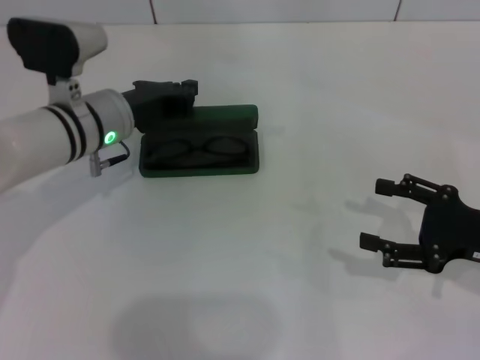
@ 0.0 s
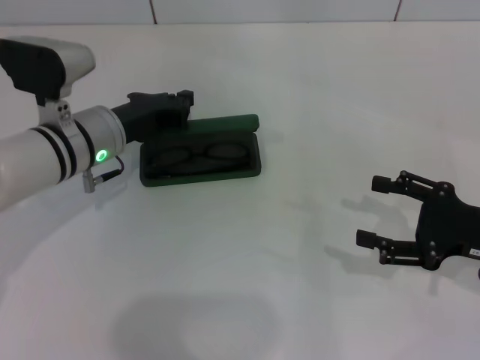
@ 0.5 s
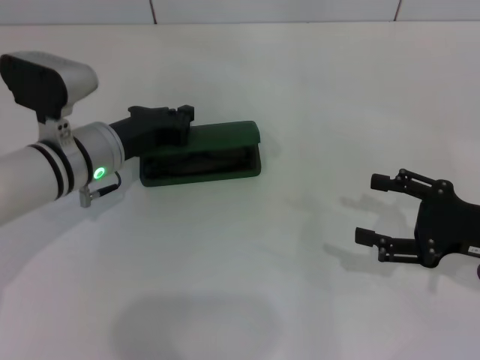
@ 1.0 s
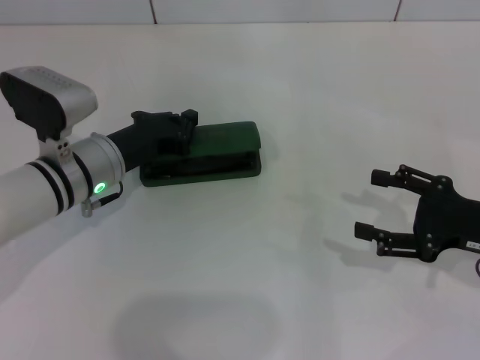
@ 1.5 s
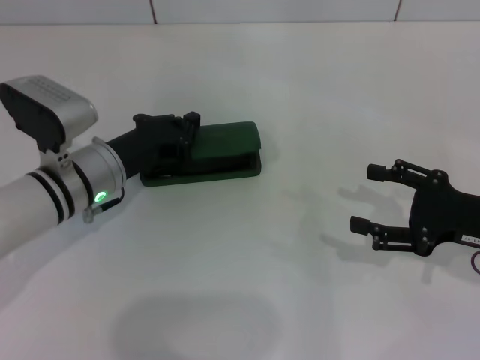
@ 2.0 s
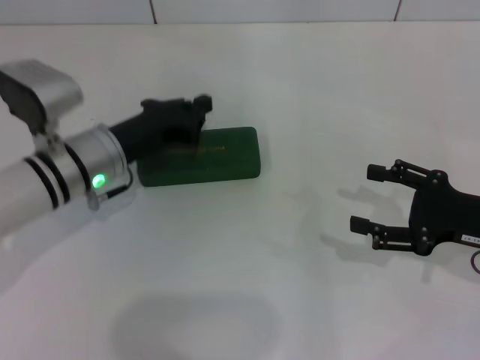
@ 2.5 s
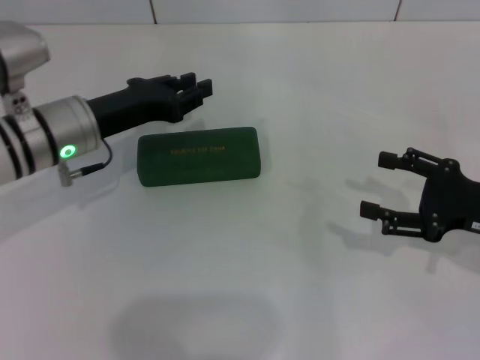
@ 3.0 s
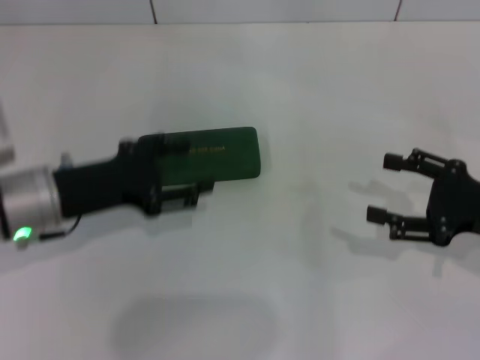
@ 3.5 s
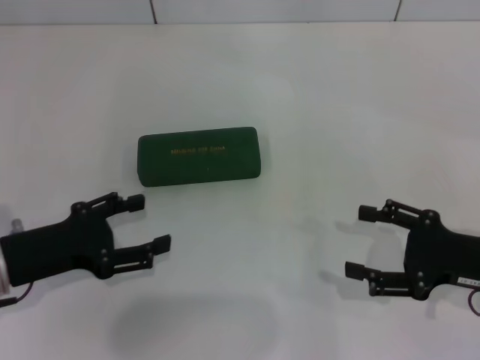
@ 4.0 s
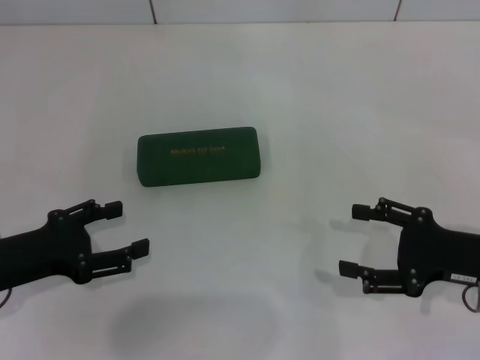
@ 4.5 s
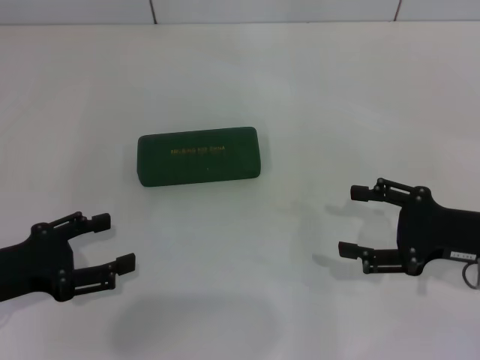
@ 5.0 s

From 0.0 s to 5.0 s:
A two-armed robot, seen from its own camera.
Step, from 0.0 s to 2.0 s: Close the glasses case with your left hand.
From 2.5 s to 5.0 s: The left gripper shifts roughly 20 cm backward and to the left, and opens.
